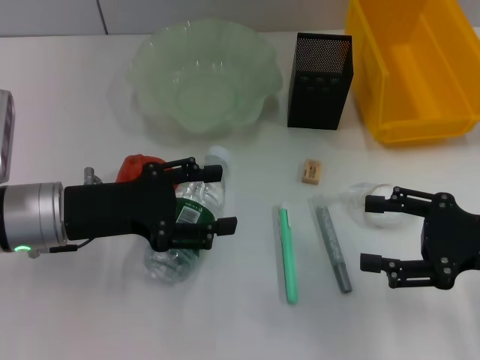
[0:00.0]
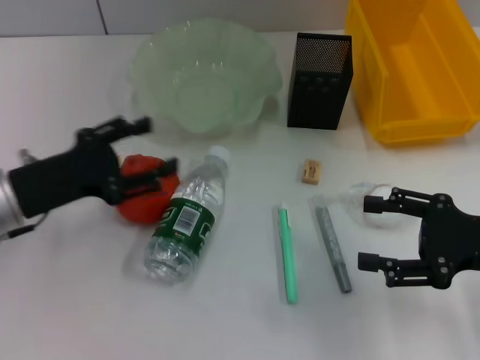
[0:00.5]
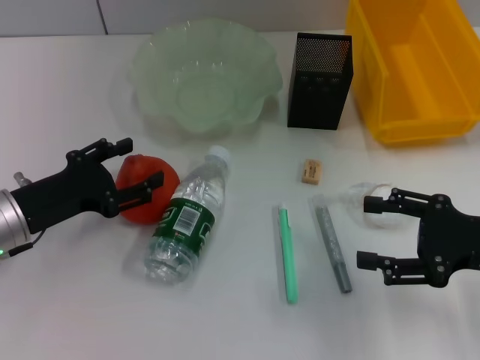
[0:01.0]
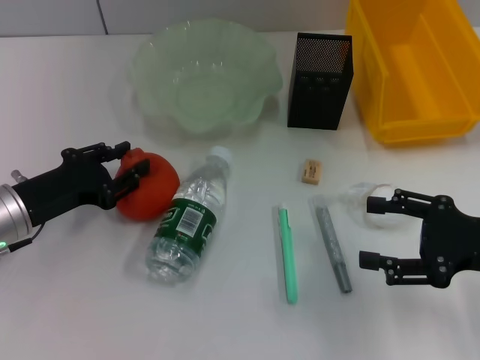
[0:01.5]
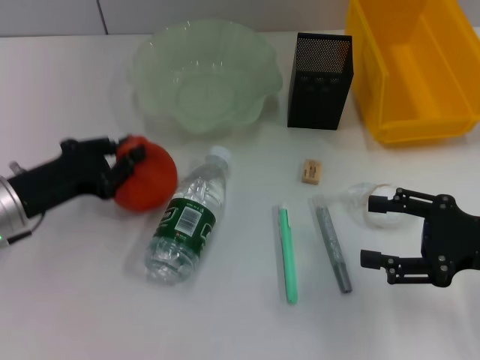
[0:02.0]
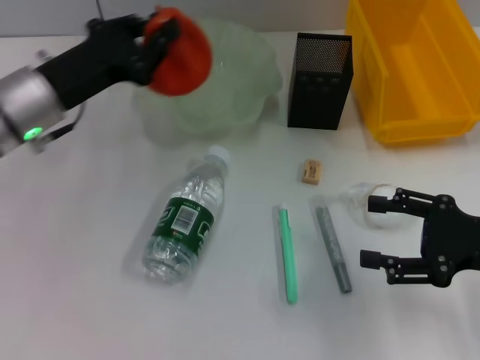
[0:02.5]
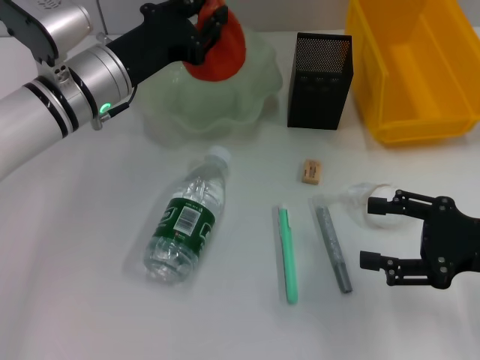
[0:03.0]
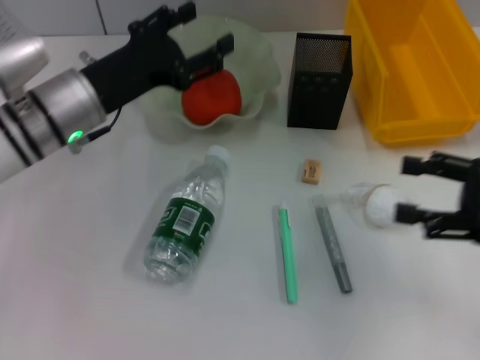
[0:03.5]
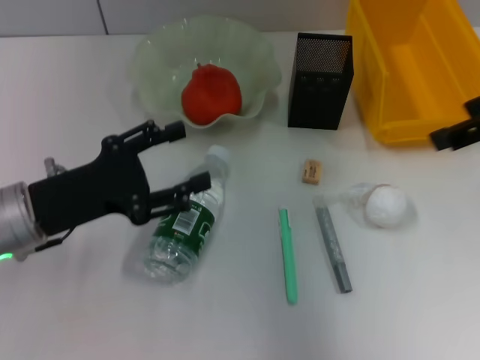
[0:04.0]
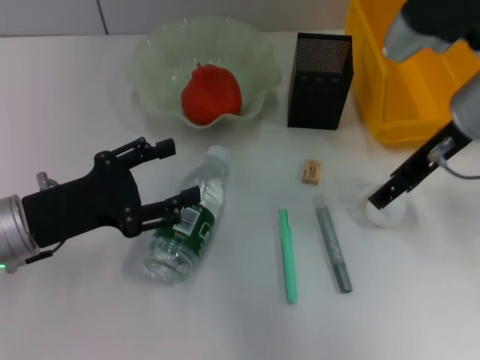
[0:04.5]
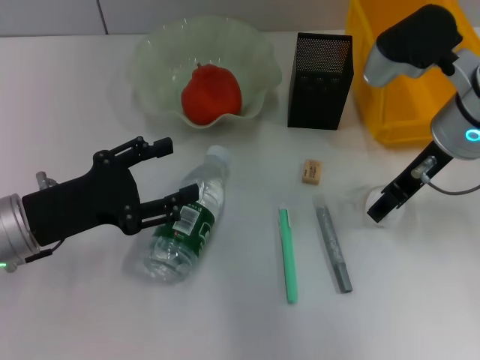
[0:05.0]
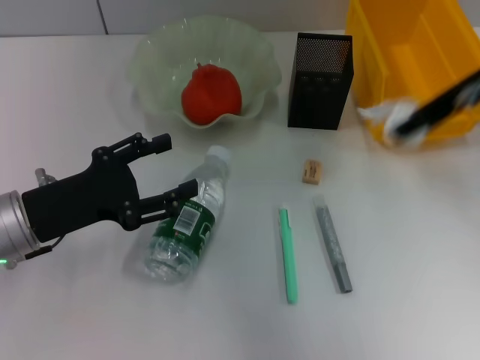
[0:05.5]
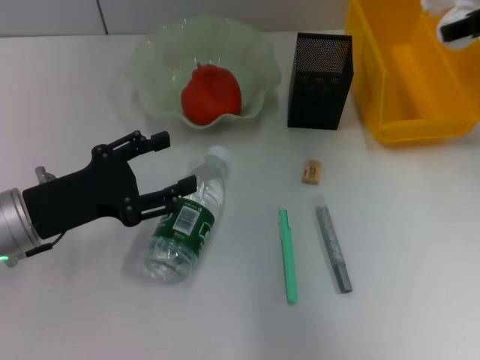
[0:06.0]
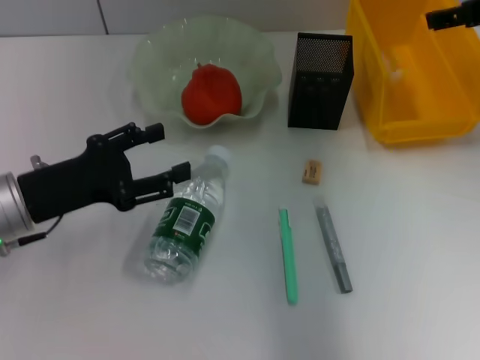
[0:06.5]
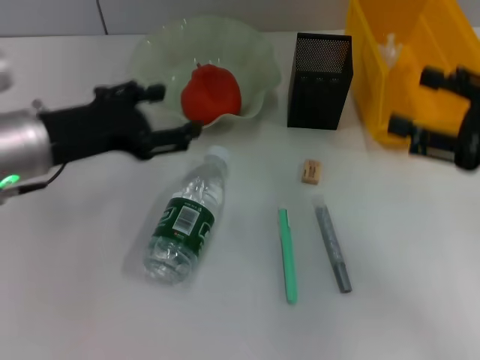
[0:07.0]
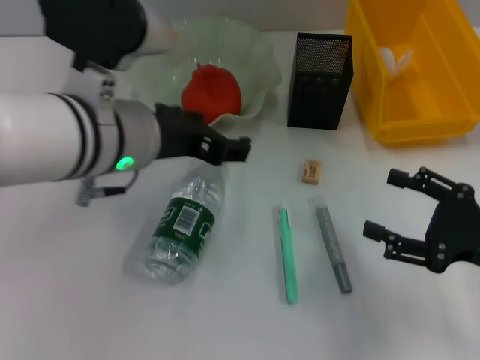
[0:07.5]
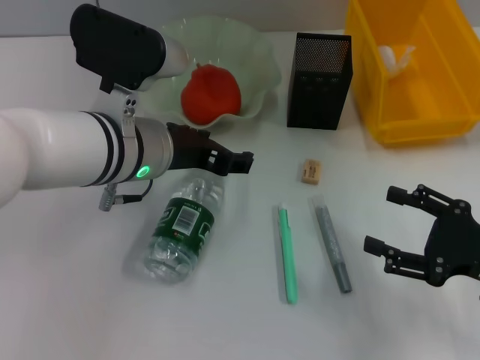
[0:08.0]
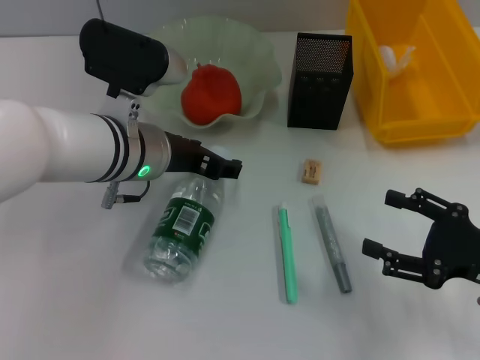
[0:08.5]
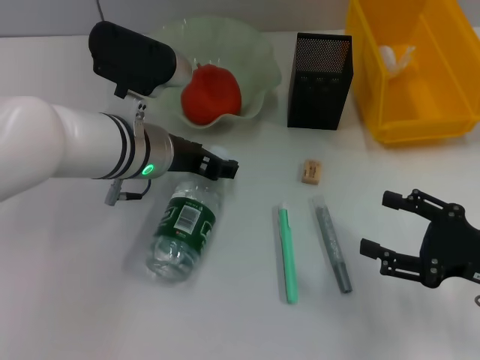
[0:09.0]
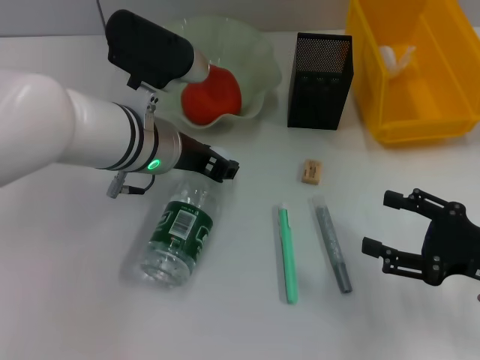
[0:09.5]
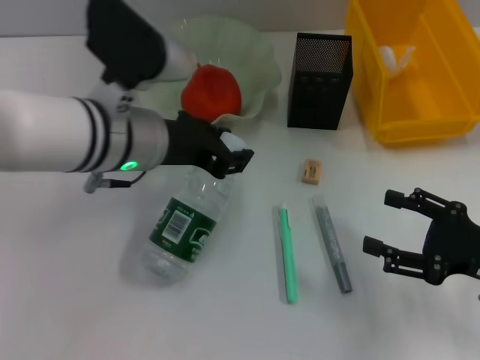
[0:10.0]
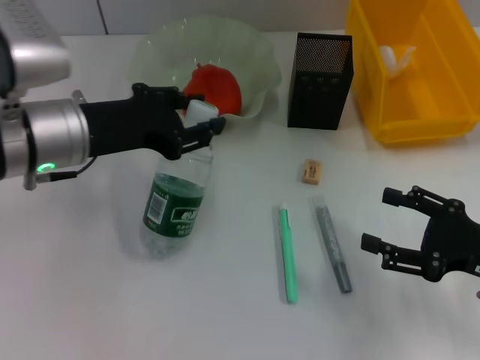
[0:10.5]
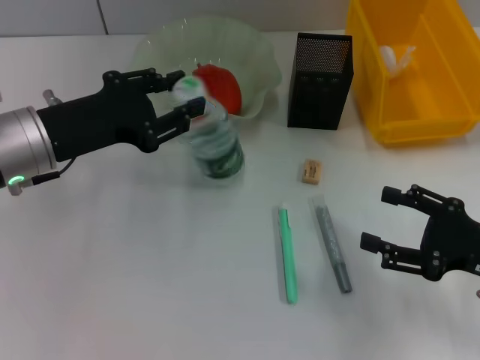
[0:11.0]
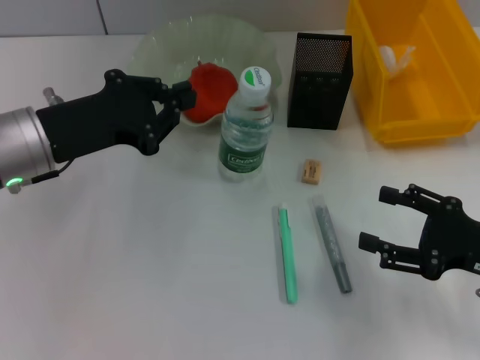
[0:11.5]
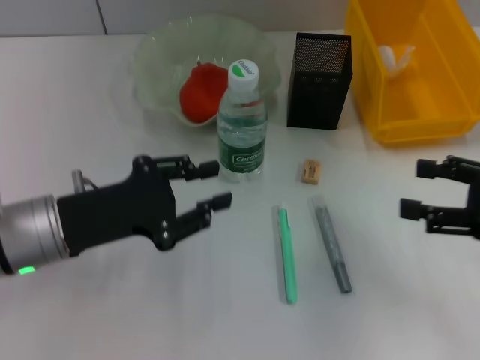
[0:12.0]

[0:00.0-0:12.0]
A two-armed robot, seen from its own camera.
Step, 0:00.0 to 0:01.5: Grab the orange with the left hand.
Step, 0:02.0 to 0:03.0: Place the orange into the fruit bowl with the left hand.
Step, 0:03.5 to 0:05.0: Grab the paper ball with the right hand.
Step, 0:05.5 to 0:07.0: Place the paper ball into the trash can with the right hand.
Step, 0:07.5 to 0:09.0: Grab the water bottle with the left hand.
Step, 0:09.5 to 0:11.5: Place the water bottle on the table with the left hand.
0:00.0 to 0:02.0: The left gripper shifts some 5 cm to the left, and closes up.
0:02.0 to 0:04.0: The right gripper heads upward and forward, covering roughly 20 cm; the left gripper travels forward and back again, about 10 cm each way, and opens its fingers.
0:04.0 to 0:06.0: The right gripper heads forward, covering some 10 cm, travels downward and back again, some 10 cm each way, and closes its fingers.
0:06.0 to 0:08.0: The right gripper shifts approximately 25 cm downward and backward, and opens, while the left gripper goes some 15 cm to the right and upward.
0:08.0 to 0:10.0: The left gripper closes its fingers.
0:10.0 to 0:12.0: The left gripper moves to the left, backward and downward, approximately 15 cm, and closes its fingers. The right gripper shifts about 5 cm upward.

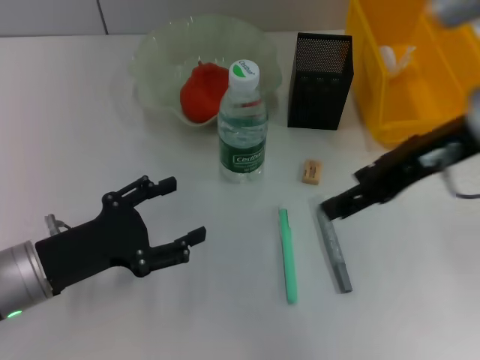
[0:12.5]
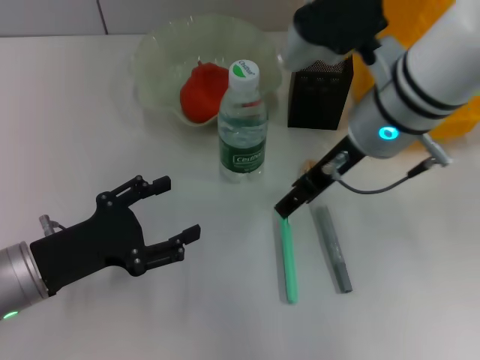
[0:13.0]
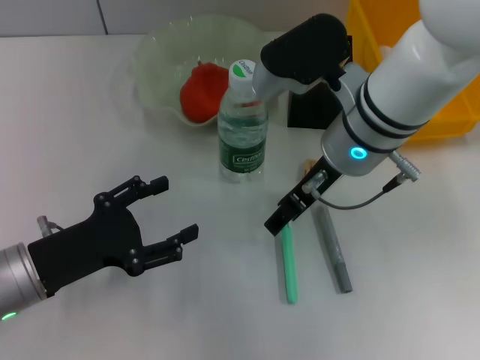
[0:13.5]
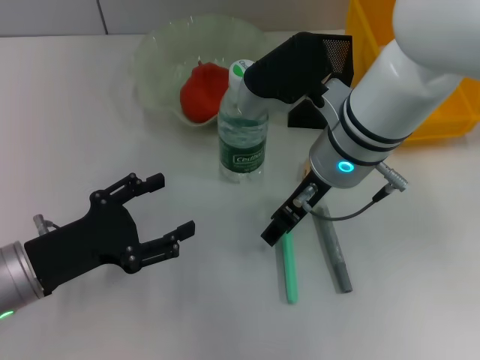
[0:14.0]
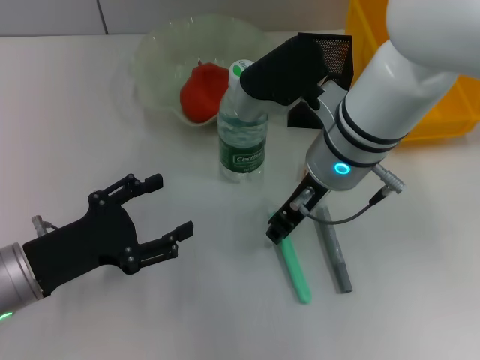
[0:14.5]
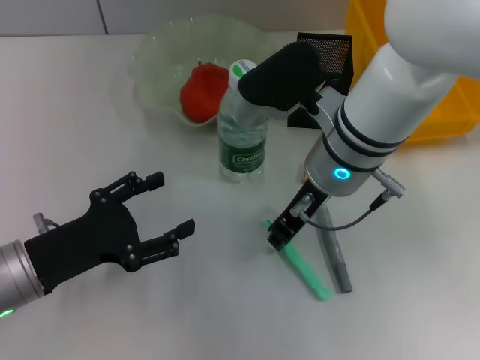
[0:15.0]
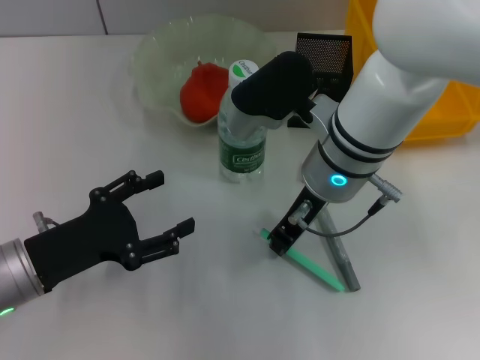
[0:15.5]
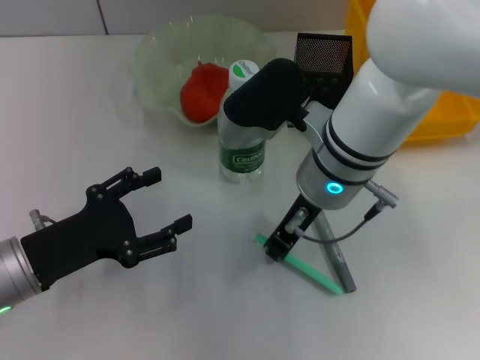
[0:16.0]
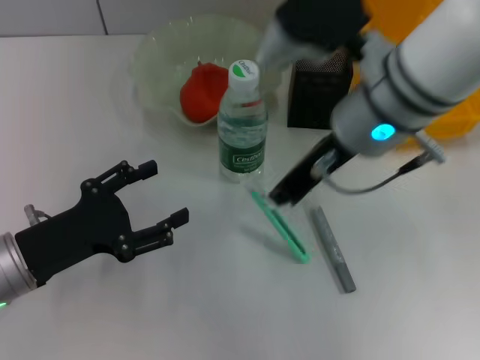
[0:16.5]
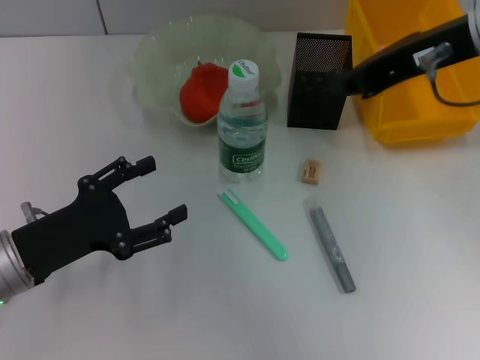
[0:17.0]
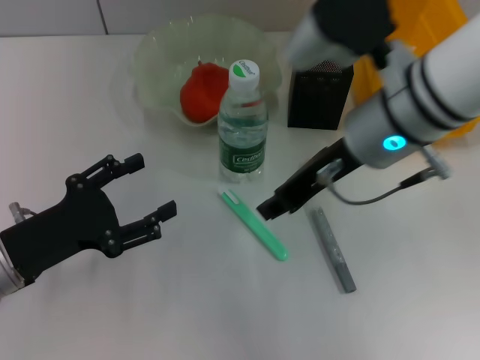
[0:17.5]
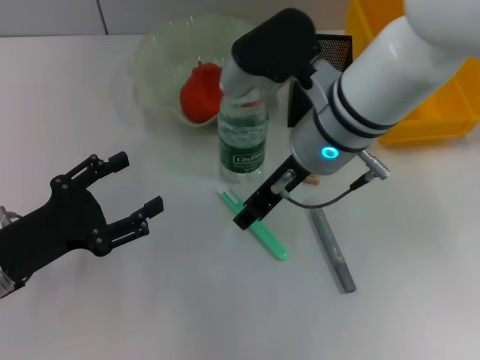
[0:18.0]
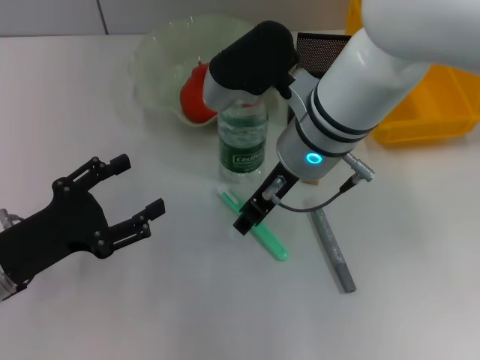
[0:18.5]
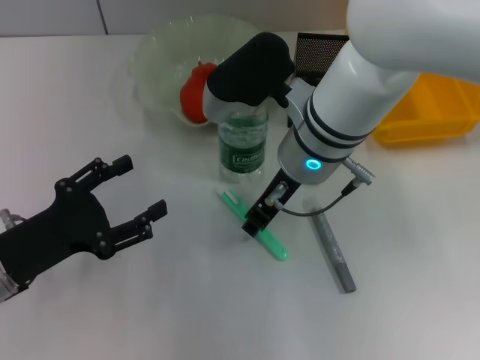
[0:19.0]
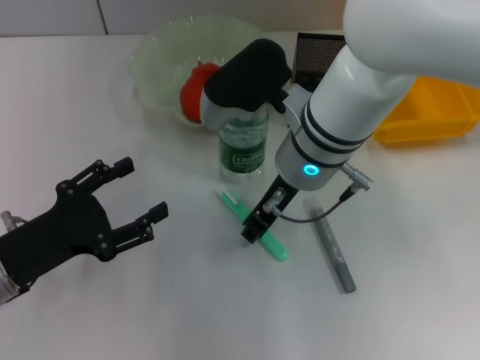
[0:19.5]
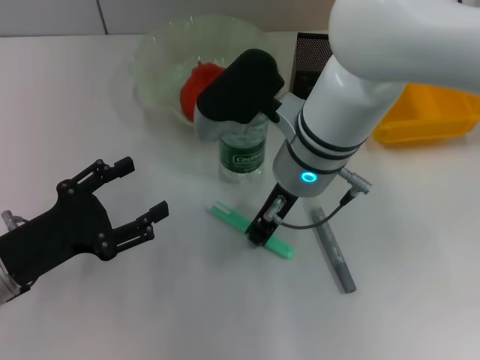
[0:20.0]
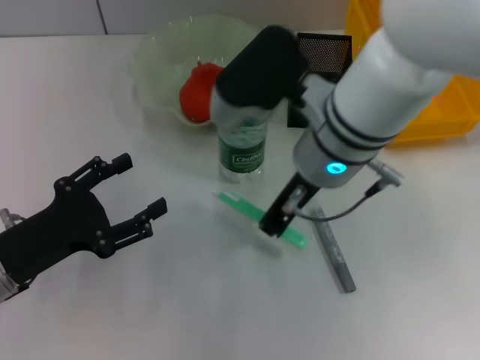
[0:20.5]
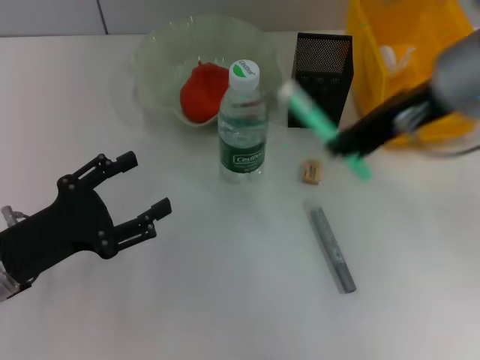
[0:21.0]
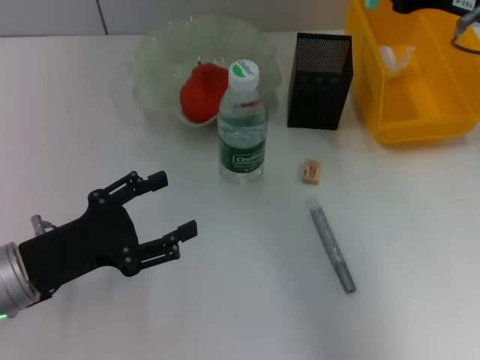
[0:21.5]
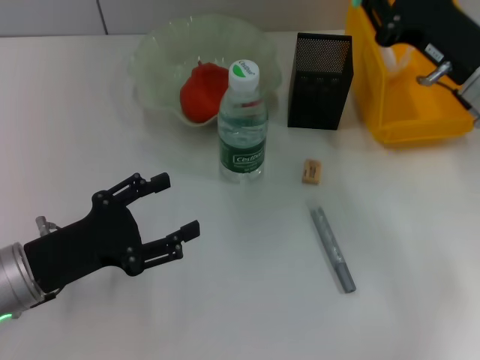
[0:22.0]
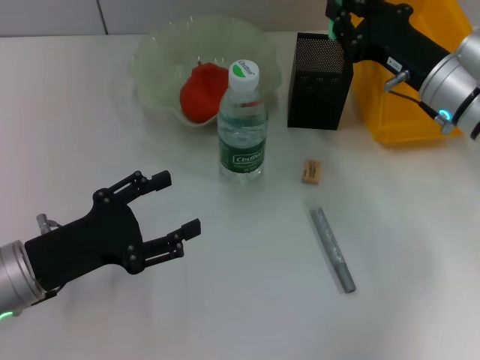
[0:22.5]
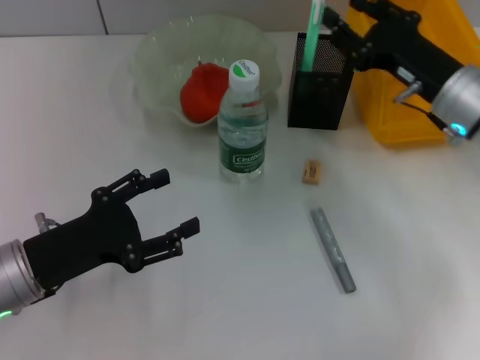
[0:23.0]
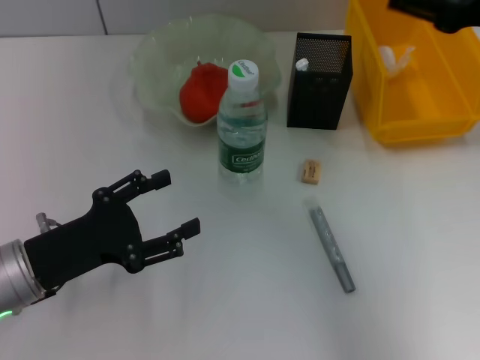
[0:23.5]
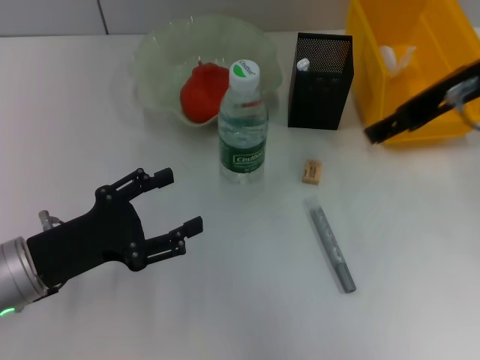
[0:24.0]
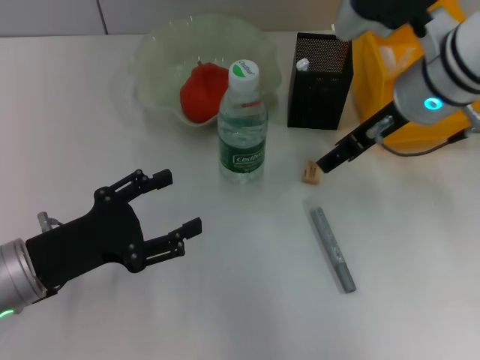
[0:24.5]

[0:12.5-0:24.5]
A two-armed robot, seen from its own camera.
Step, 0:12.5 to 0:19.5: Grab the blue utility knife with the right hand.
Step, 0:20.0 to 0:23.0: Place the blue utility knife into the pen holder with the right hand.
0:12.5 to 0:14.5: The right gripper shifts about 15 cm to the left and downward, and closes.
0:14.5 to 0:16.5: The right gripper travels upward by roughly 5 cm, and closes.
0:16.5 to 0:18.5: The right gripper travels downward by some 5 cm, and opens its fingers.
0:18.5 to 0:20.5: The right gripper closes up.
0:20.5 to 0:22.5: The right gripper is displaced to the right and downward by some 15 cm.
0:22.5 to 0:24.5: The right gripper is displaced upward and to the left by approximately 10 cm, and opens up.

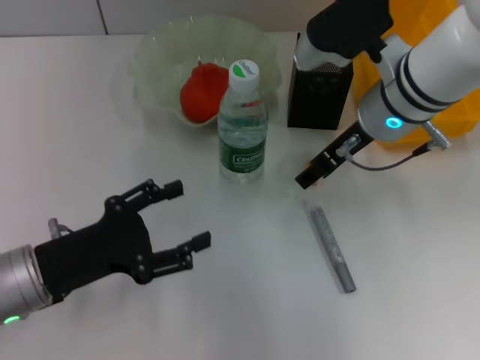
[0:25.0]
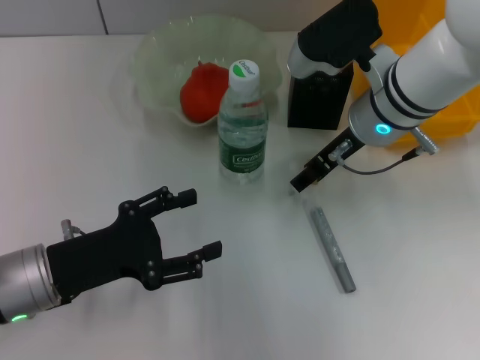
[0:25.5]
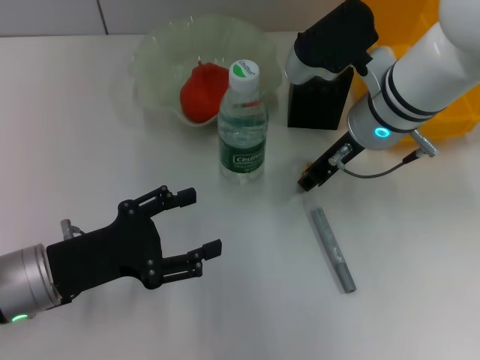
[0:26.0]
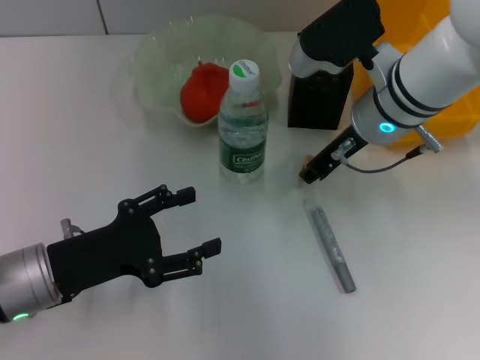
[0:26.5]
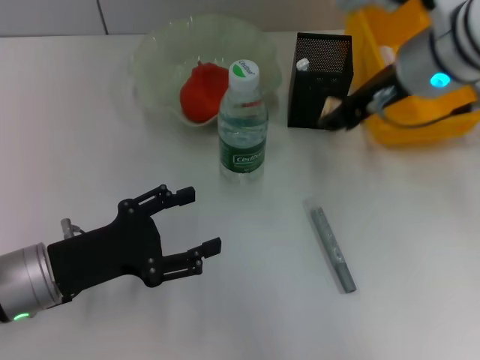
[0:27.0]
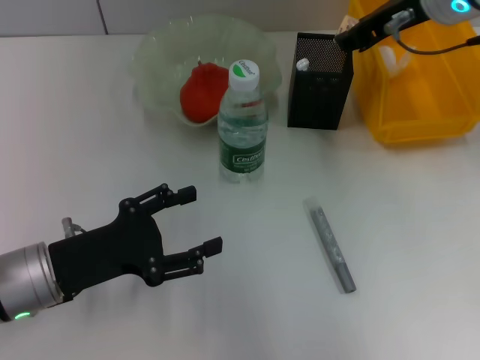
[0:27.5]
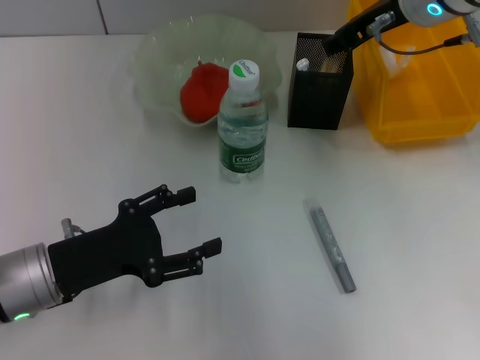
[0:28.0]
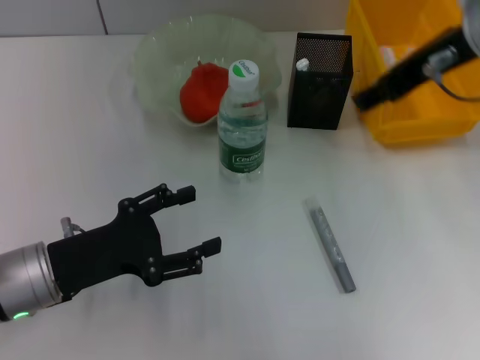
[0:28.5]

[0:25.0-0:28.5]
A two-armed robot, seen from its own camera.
Step, 0:26.5 to 0:28.0: Put the eraser into the pen holder with the right hand.
0:25.0 to 0:27.0: The right gripper moves upward, about 5 cm, and closes its fingers.
0:27.0 to 0:28.5: The right gripper is displaced upward by some 5 cm.
